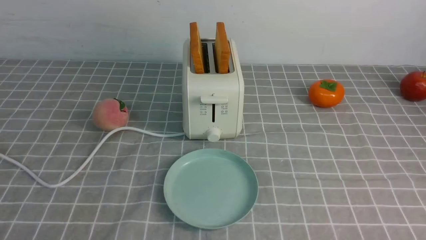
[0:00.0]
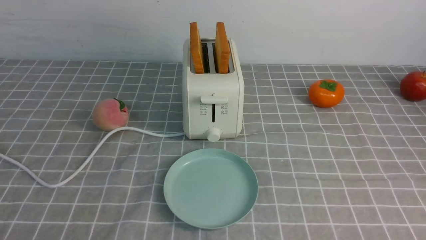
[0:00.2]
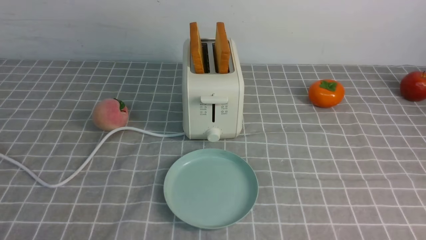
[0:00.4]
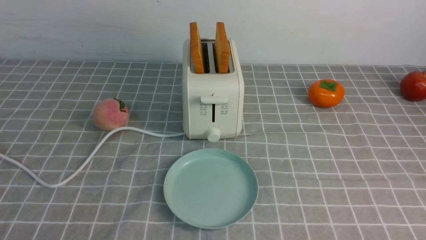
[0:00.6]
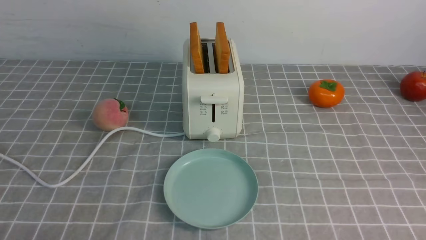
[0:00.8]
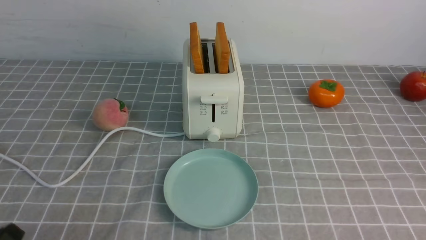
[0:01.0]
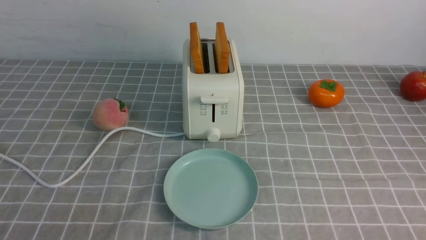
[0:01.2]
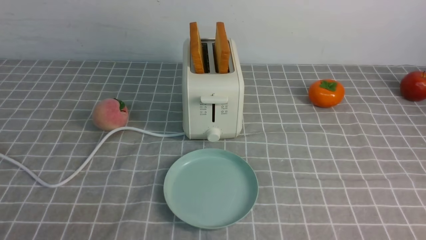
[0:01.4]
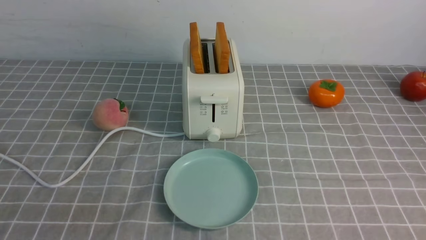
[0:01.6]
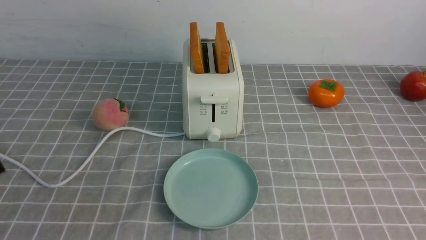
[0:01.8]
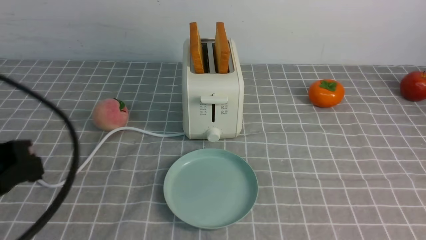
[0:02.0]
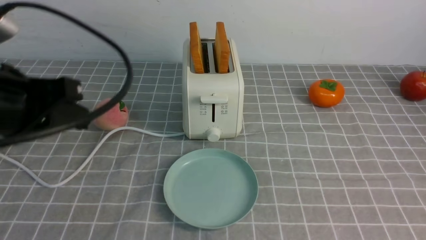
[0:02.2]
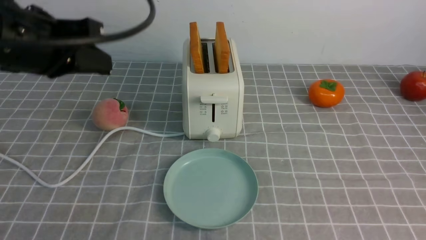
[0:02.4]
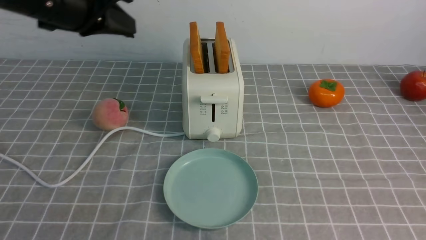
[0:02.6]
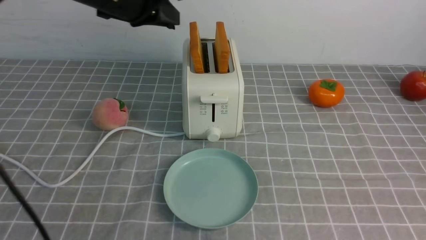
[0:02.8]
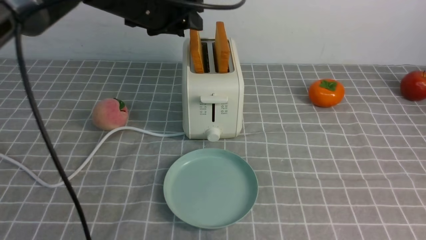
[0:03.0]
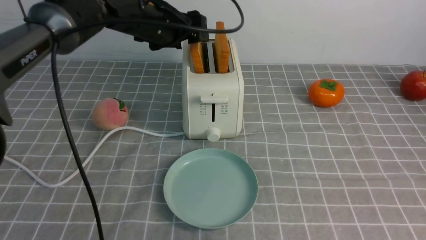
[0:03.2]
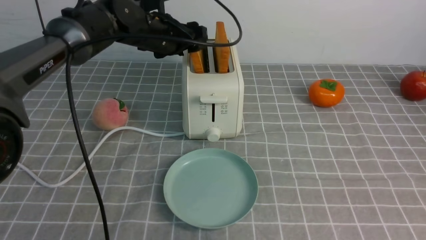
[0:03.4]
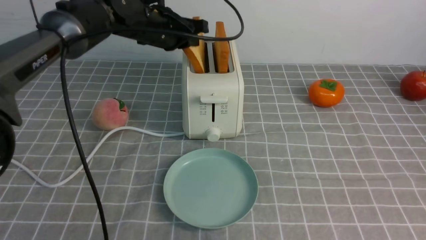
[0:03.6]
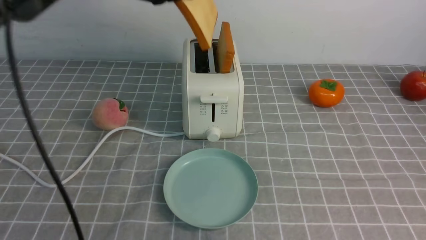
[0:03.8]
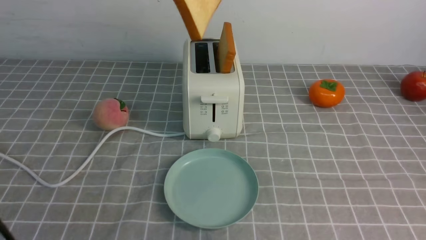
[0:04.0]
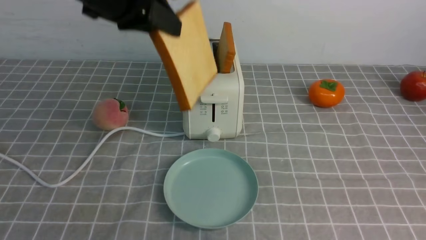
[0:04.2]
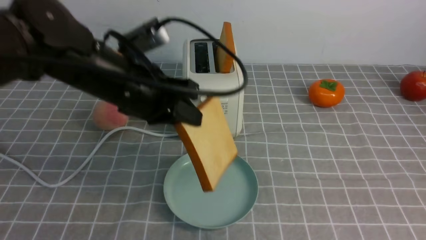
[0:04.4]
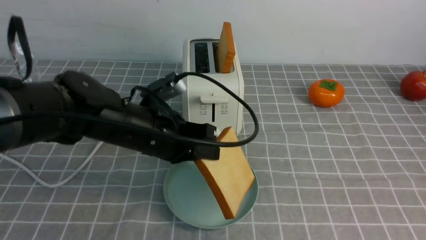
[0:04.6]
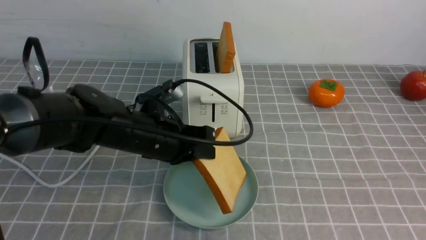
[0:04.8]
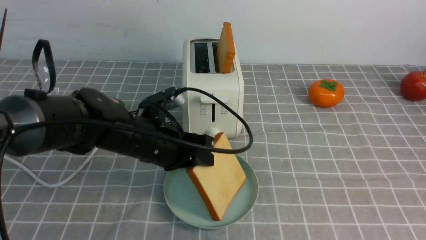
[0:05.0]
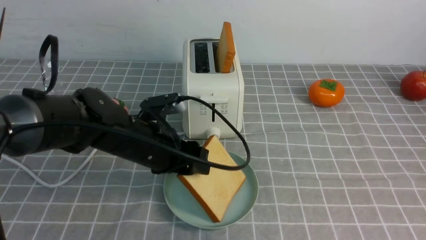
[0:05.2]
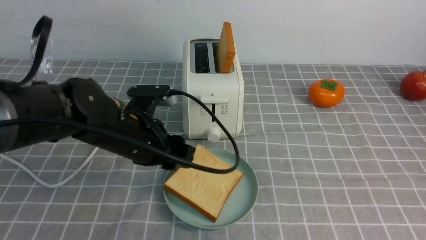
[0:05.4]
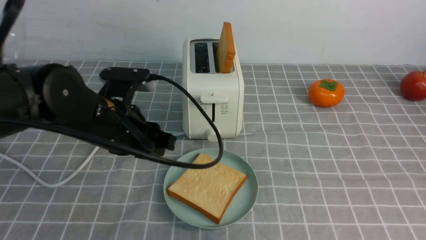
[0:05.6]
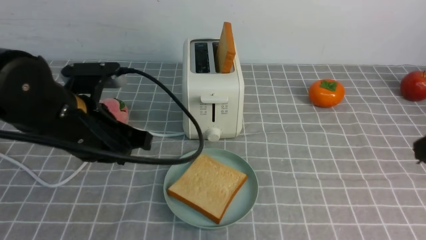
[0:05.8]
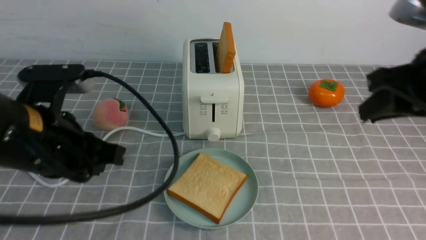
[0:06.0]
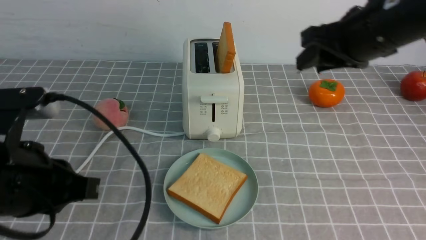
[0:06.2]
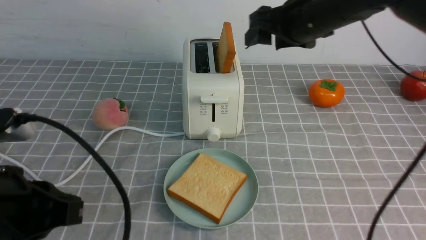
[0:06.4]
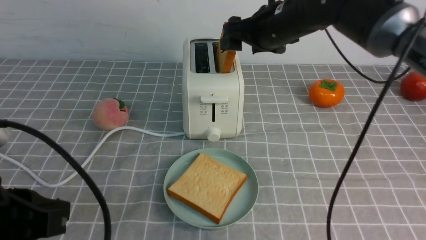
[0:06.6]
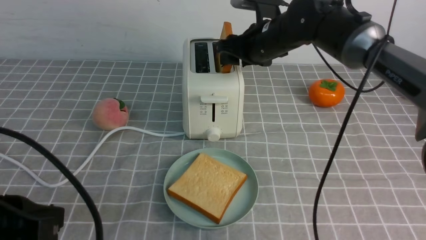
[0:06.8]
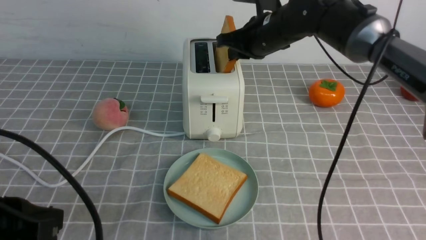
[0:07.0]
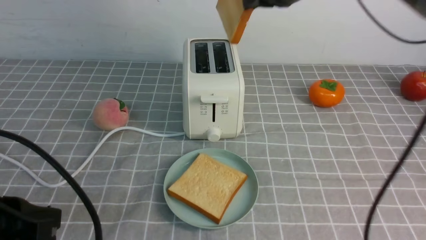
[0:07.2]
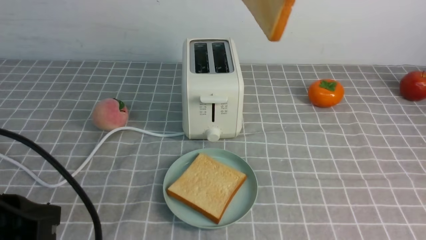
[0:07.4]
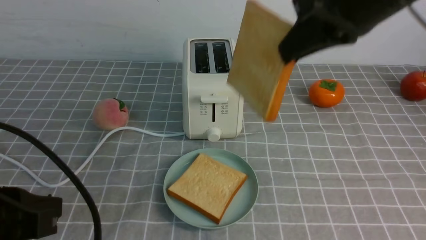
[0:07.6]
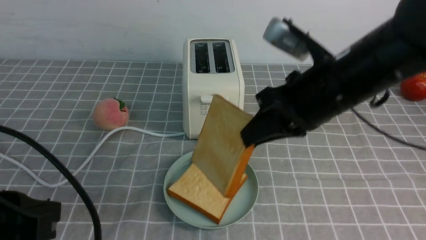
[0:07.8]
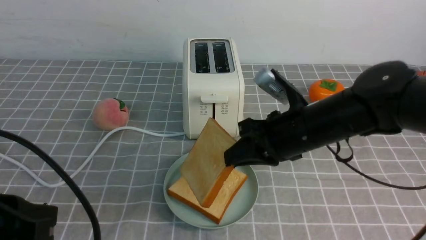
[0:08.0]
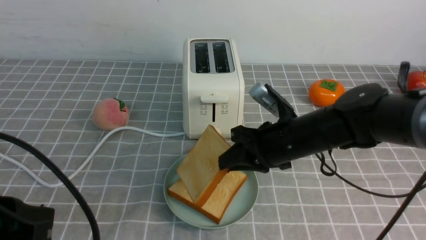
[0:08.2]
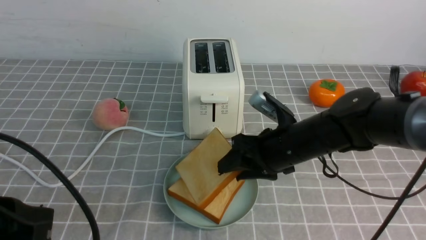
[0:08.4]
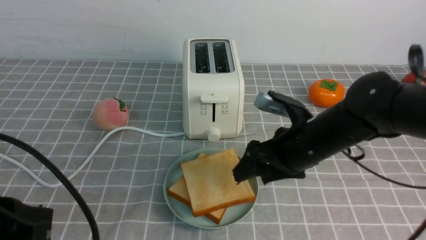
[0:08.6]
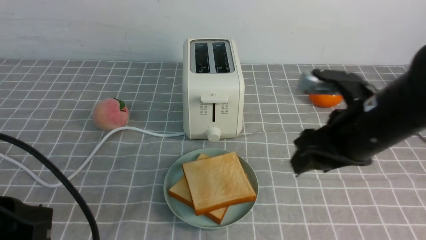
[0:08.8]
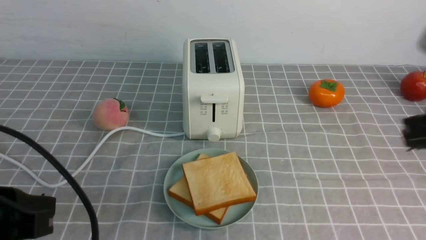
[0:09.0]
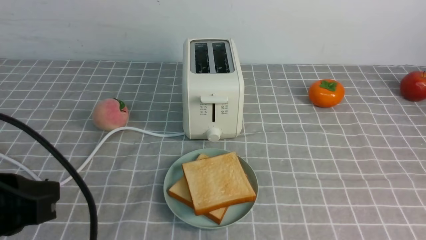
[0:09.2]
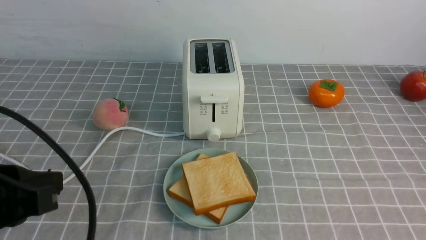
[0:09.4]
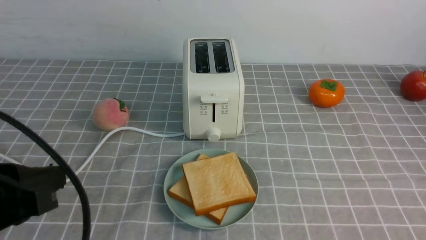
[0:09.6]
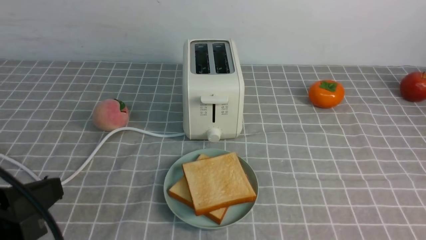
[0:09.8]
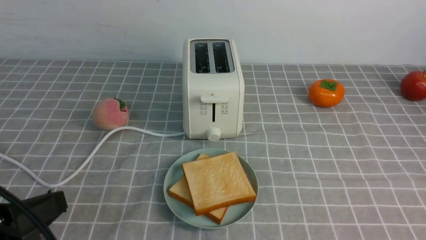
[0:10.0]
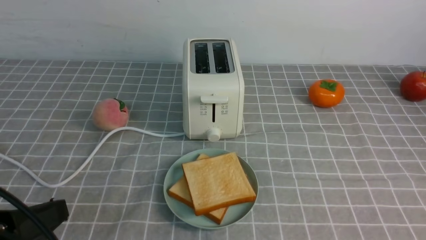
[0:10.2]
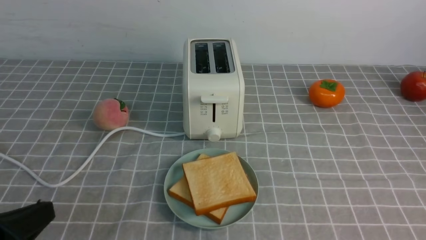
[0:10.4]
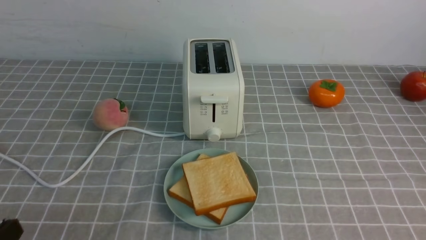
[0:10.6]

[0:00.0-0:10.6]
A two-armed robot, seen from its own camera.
Task of the whole recording: take toasted bread from bread machine on grey coffee table place on plate.
Step, 0:00.0 to 0:03.8: use the left arm to take out a slice of bread.
Step, 0:04.0 to 0:05.4: use the left arm to put a slice of bread into the empty plate.
Step, 0:05.6 to 0:07.2: use the right arm to take out a slice of bread.
Step, 0:07.4 to 0:08.6: use the right arm to put a slice of bread into the plate.
0:01.6 to 0:03.0: The right gripper is displaced upward by approximately 10 cm, and closes. The left gripper travels forward by approximately 40 cm, and opens.
0:03.0 to 0:04.6: The left gripper goes up and down, roughly 20 cm each way, reversing 2 times, and closes its fingers.
0:04.6 to 0:06.0: The left gripper travels backward, to the left and upward by about 15 cm, and opens, then closes again, while the right gripper moves forward, roughly 15 cm.
0:06.0 to 0:07.6: The left gripper travels backward by about 10 cm. The right gripper is displaced to the left by roughly 10 cm, reaches some 20 cm forward, then returns, and opens, then closes once more.
0:07.6 to 0:09.0: The right gripper is displaced backward and to the right by approximately 15 cm, goes downward and returns, roughly 20 cm each way, and opens, then closes again.
0:09.0 to 0:10.6: The right gripper moves backward, downward and to the right, some 20 cm. The left gripper shifts about 10 cm downward and backward.
